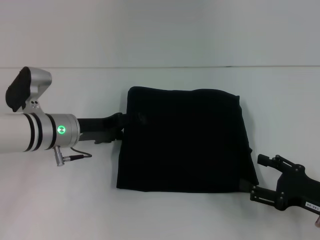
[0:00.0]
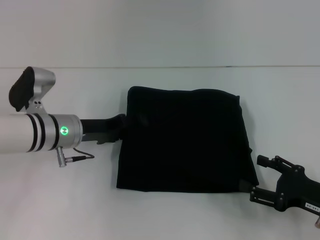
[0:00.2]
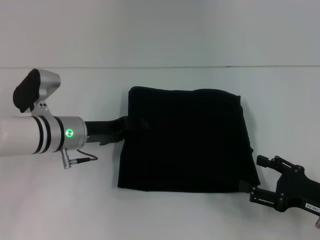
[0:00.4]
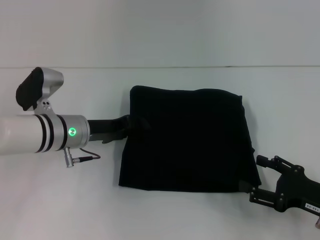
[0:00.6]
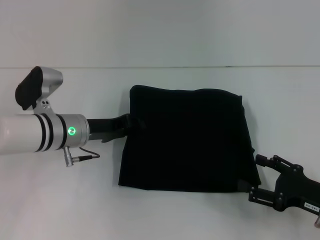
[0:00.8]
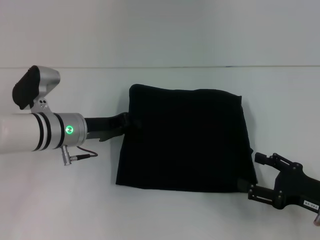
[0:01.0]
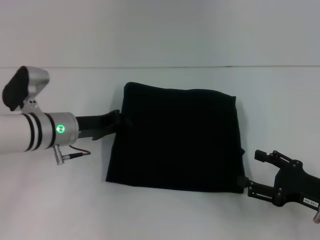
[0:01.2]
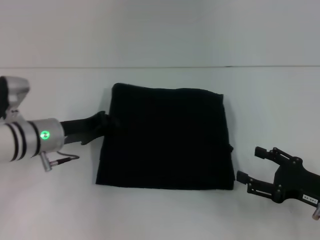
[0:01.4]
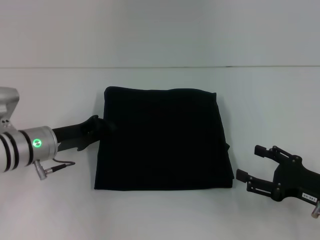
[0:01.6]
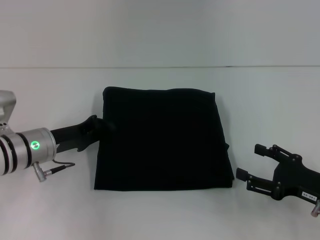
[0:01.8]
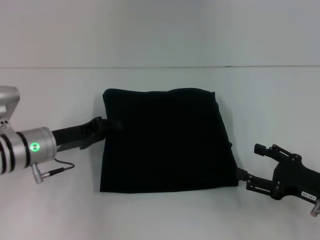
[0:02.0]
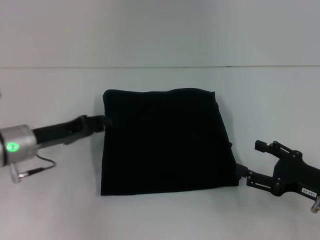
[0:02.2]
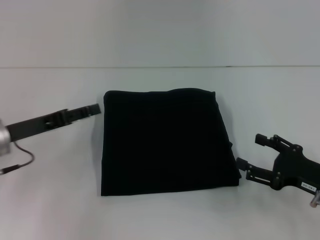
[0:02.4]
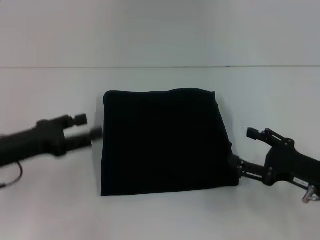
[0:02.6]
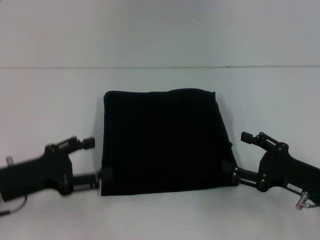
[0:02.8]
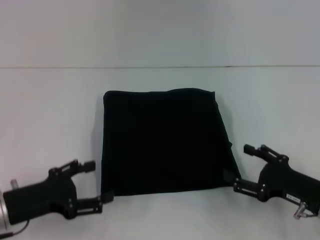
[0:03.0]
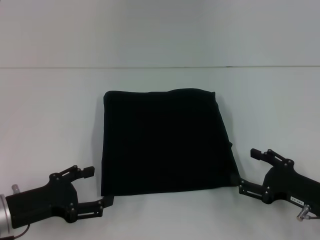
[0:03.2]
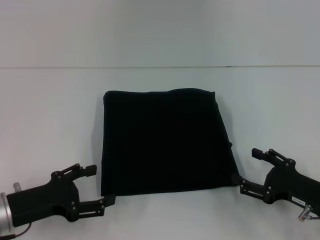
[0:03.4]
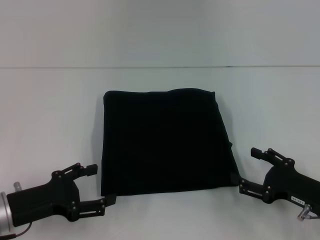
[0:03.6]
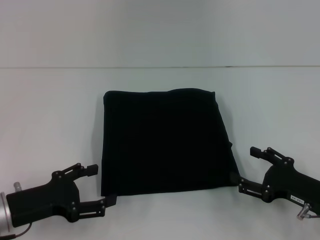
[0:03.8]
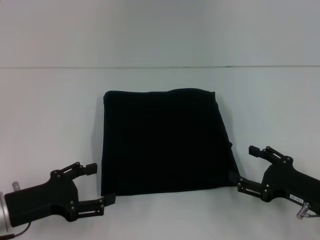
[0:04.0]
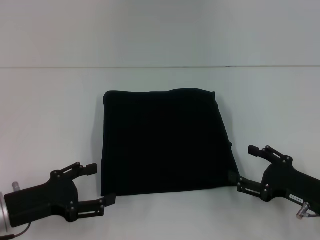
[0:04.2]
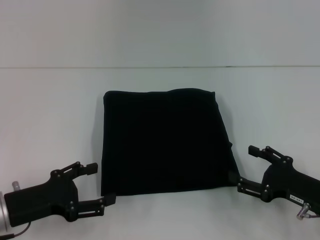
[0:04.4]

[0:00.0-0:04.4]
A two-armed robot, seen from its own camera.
0:00.0 to 0:01.4: The left gripper closes its fingers.
0:01.4 to 0:03.0: The left gripper is displaced backward and to the left by approximately 15 cm, and opens up.
0:03.0 to 0:04.4: The two grippers keep their place.

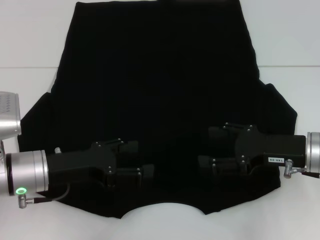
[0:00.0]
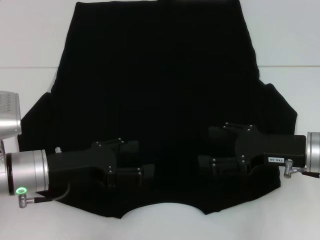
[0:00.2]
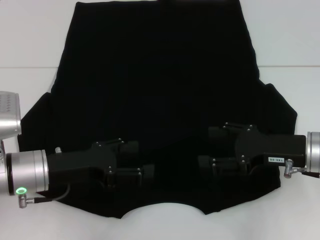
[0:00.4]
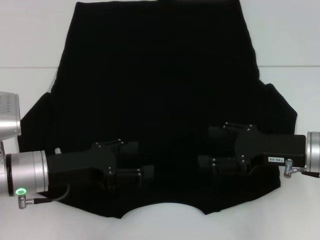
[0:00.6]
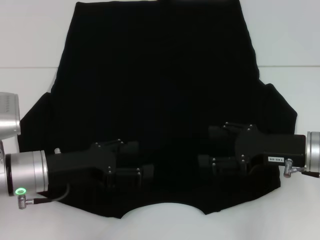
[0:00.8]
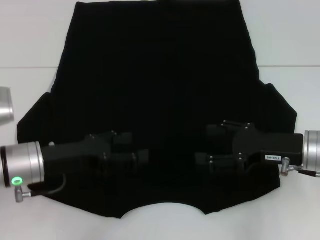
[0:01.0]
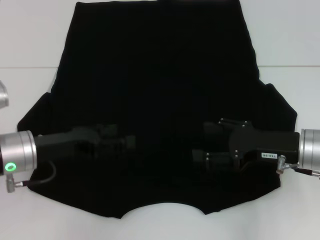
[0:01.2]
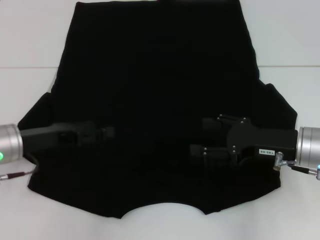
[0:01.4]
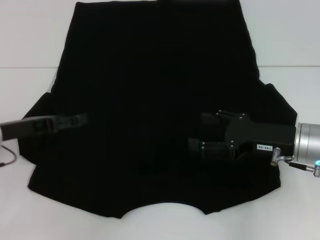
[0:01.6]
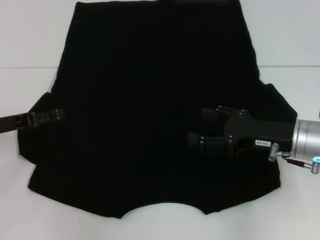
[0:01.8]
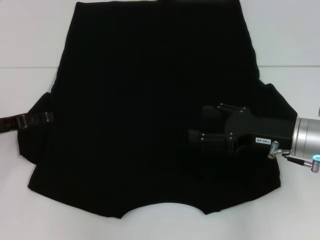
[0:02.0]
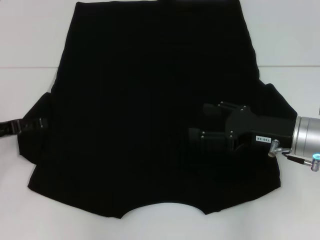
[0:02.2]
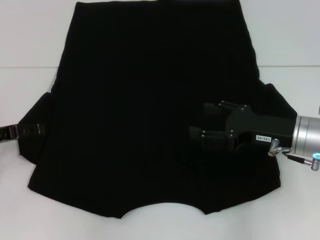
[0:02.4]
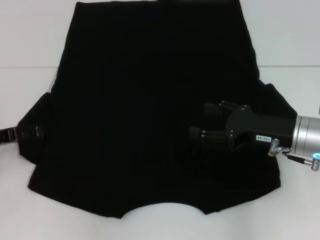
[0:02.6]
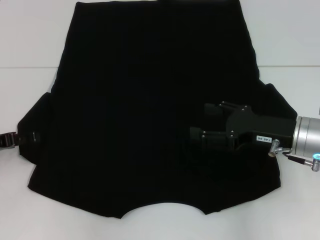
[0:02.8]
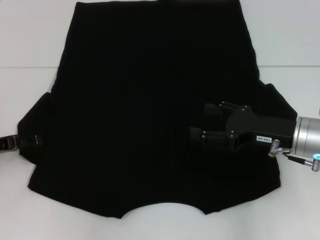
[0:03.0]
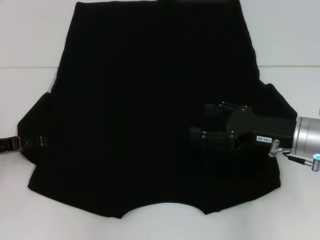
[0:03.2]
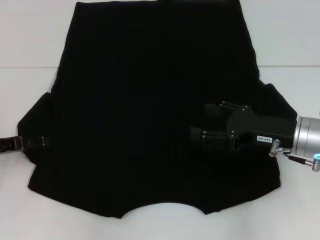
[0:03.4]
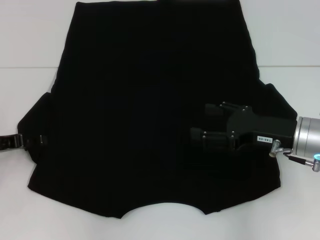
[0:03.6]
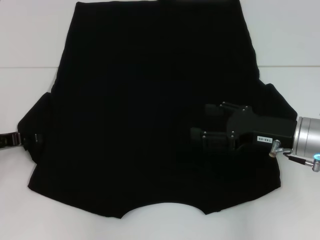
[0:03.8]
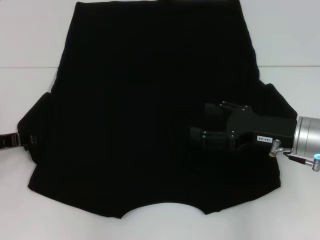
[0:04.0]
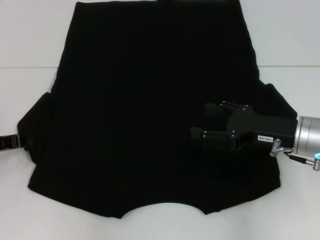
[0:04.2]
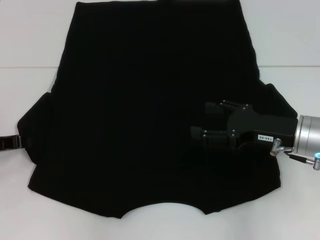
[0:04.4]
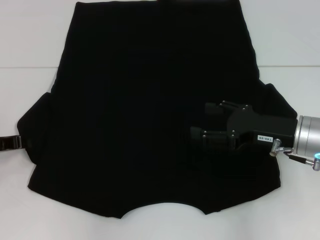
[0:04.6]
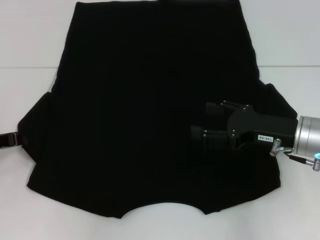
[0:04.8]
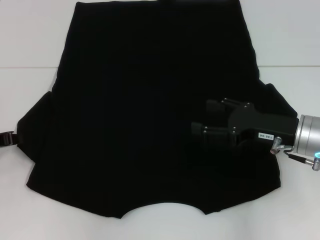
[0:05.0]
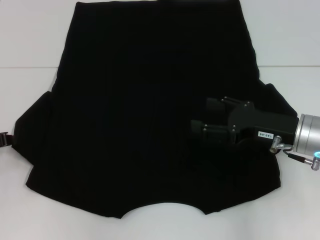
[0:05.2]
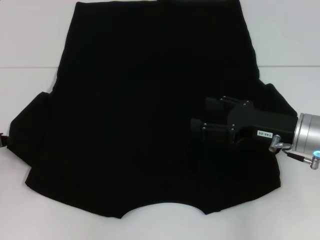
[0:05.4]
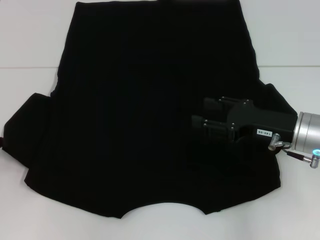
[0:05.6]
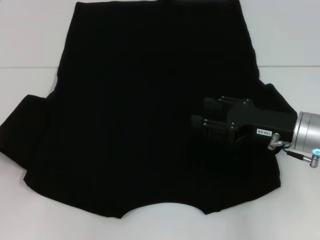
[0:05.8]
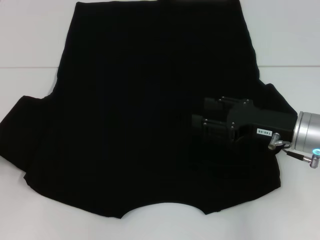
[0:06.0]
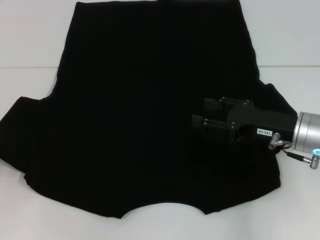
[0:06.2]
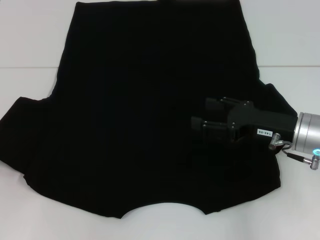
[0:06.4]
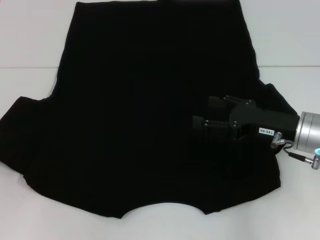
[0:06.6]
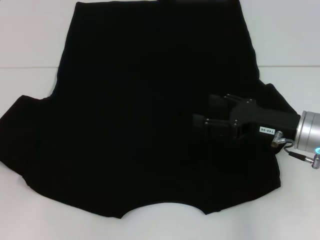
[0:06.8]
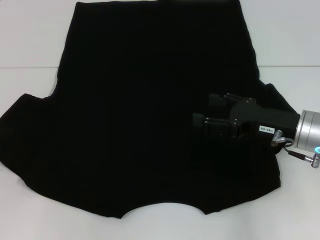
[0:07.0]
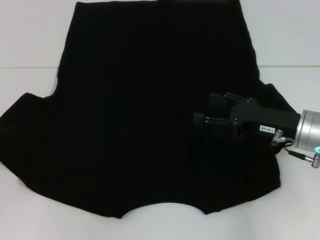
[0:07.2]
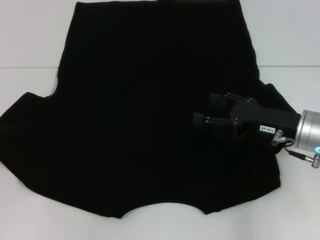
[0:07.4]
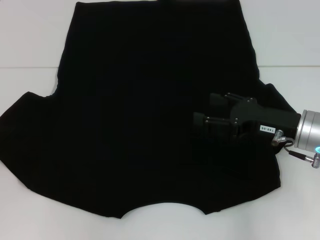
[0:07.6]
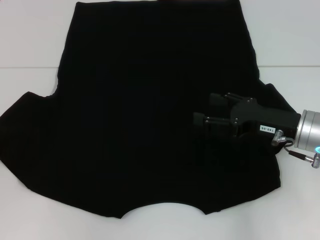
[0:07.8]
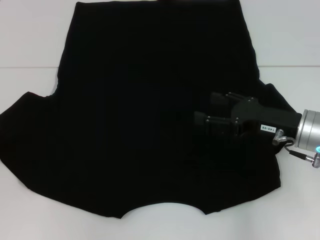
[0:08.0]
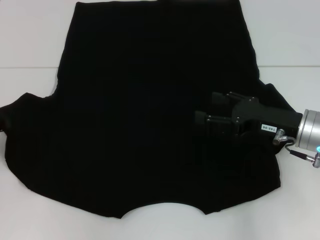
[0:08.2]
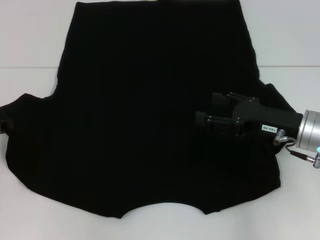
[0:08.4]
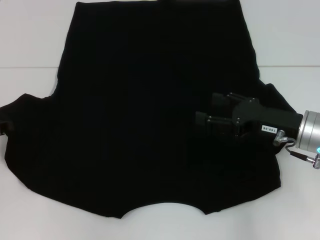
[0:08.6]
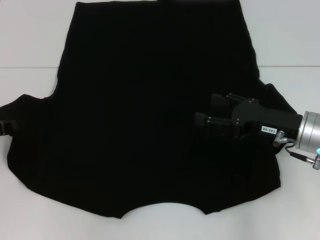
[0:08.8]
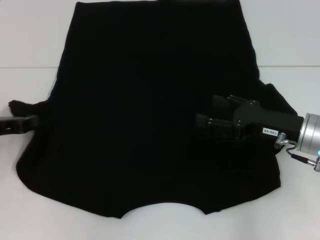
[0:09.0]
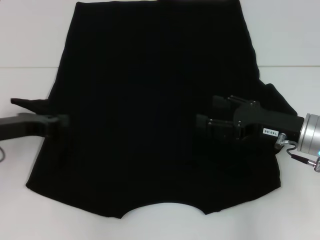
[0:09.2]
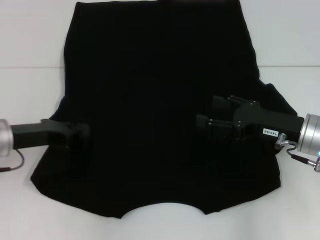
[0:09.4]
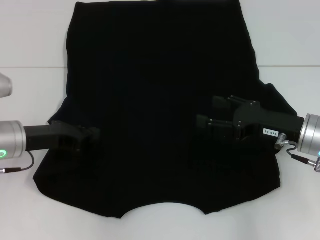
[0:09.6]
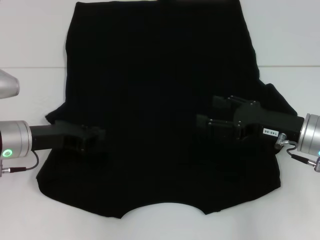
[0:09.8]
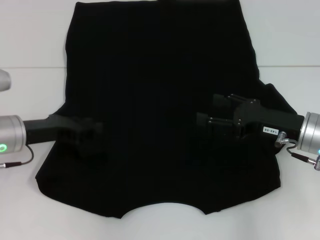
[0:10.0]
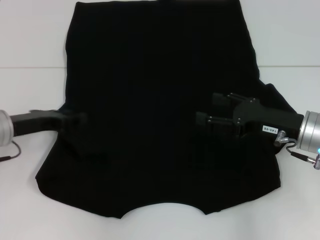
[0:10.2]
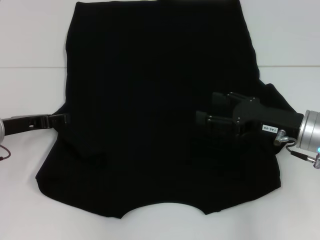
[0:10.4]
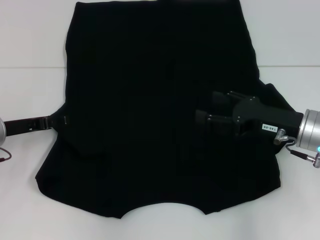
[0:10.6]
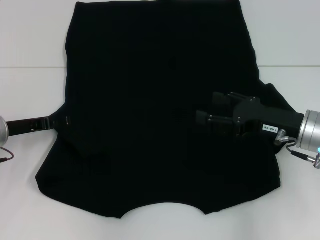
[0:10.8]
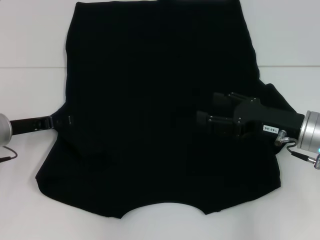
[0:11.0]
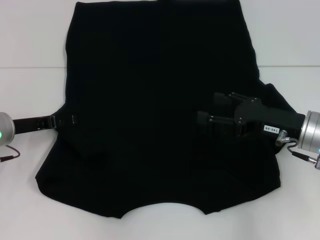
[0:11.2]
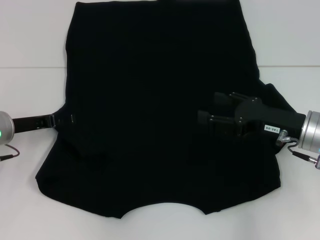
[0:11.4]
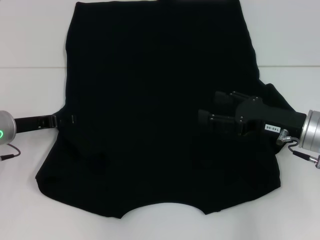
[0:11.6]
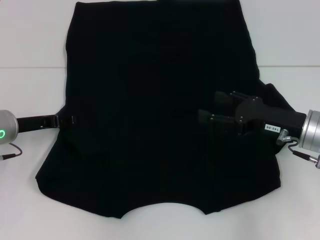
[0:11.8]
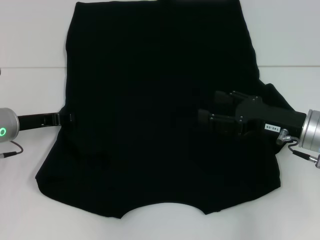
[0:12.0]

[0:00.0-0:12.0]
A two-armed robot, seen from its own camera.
0:00.0 to 0:01.6: The left gripper is displaced to the left by some 10 cm.
0:04.4 to 0:07.6: The grippers stay close to where they were, moving slightly.
0:09.0 to 0:10.4: The left gripper opens up.
0:10.4 to 0:12.0: The grippers stay close to where they were, moving slightly.

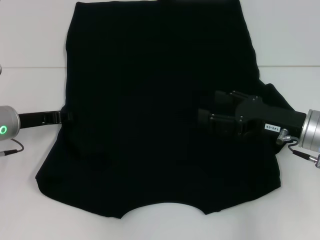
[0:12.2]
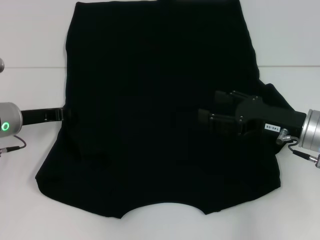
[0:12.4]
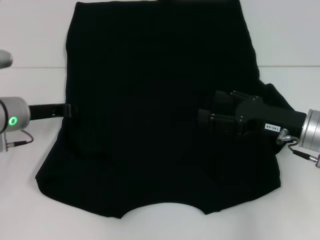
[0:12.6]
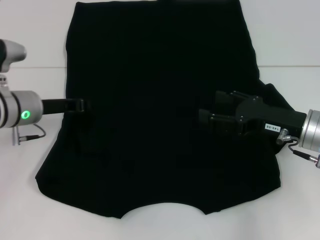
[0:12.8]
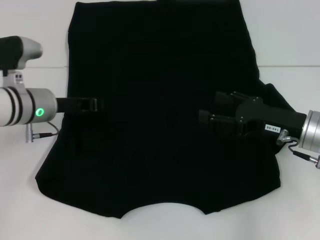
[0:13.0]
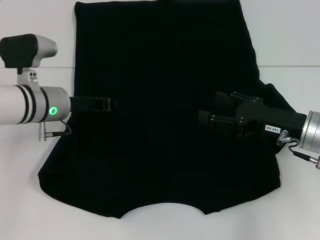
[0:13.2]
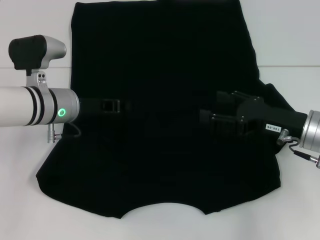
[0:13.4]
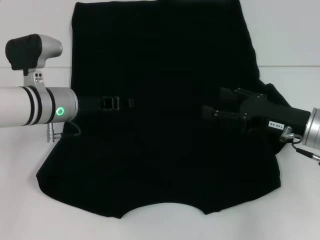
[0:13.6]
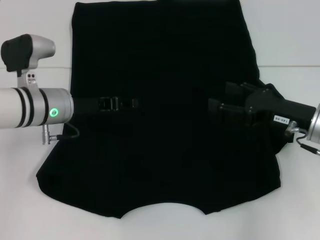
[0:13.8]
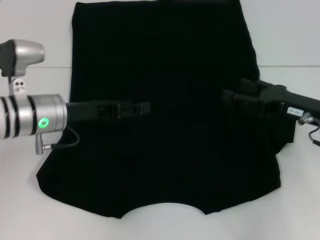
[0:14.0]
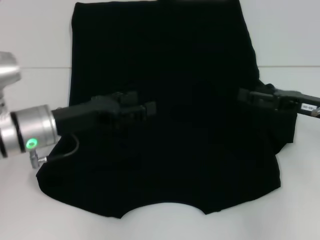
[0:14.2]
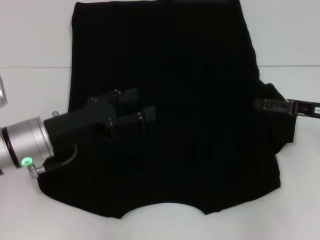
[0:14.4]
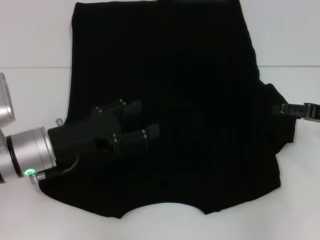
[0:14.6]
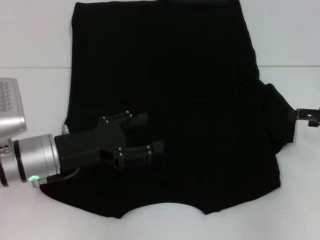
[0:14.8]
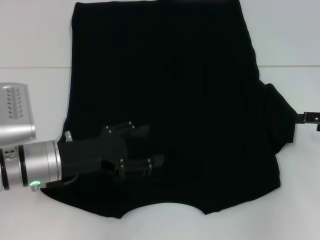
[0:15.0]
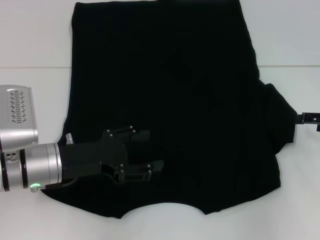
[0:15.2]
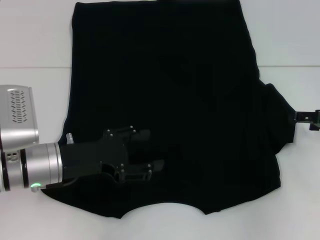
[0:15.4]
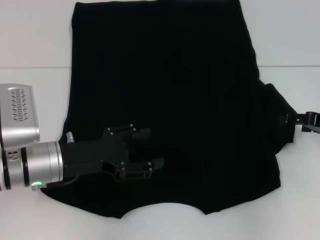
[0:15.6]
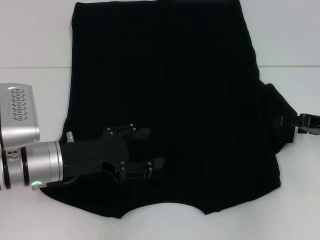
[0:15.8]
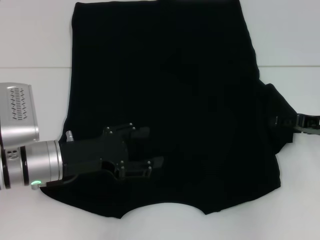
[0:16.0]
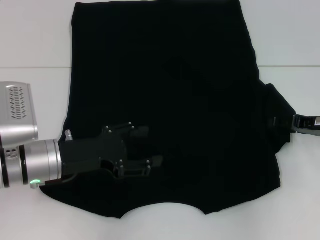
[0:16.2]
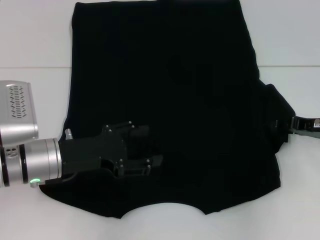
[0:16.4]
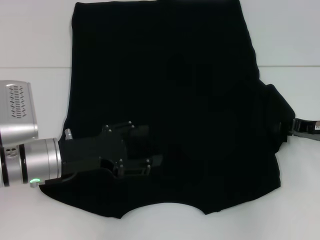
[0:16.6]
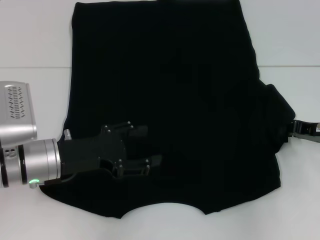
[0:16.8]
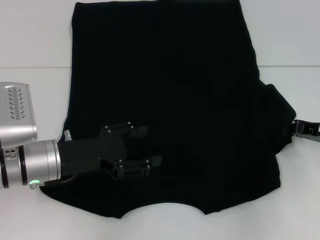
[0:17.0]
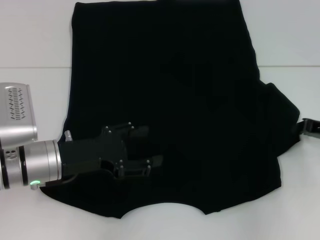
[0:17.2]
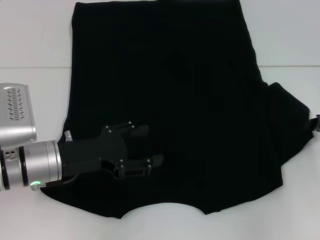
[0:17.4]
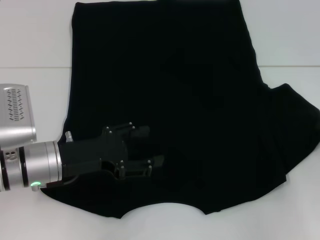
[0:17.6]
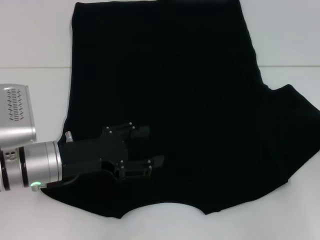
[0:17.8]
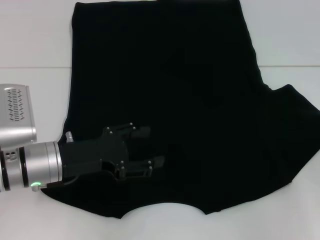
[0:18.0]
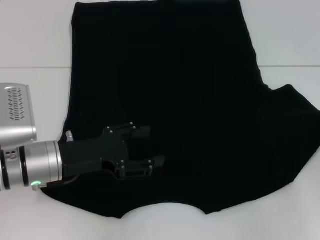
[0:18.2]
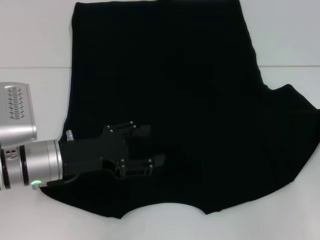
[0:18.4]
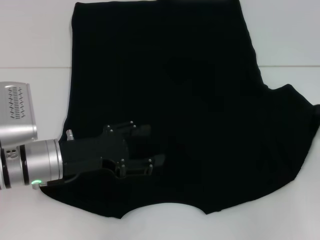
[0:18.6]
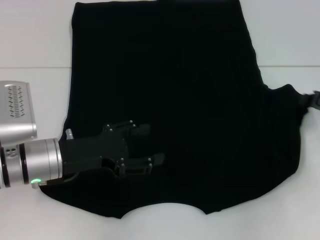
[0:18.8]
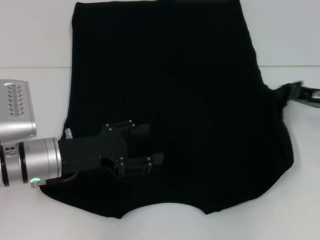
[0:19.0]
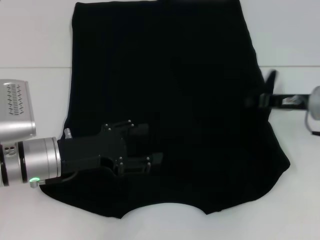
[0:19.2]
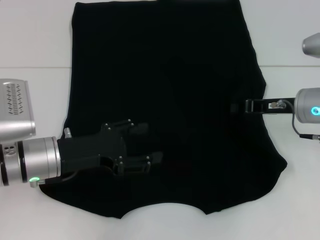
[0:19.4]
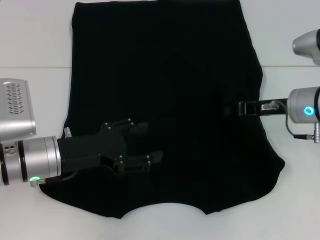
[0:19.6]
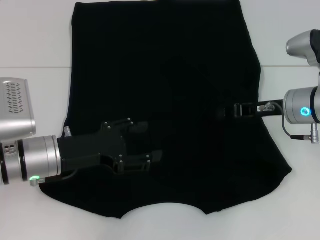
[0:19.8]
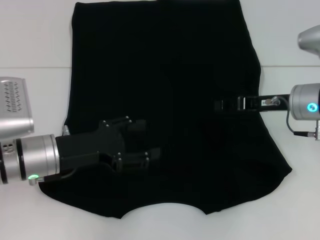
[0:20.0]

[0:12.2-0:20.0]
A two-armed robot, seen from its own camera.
Step, 0:13.6 to 0:20.0: Fold the bottom right sleeve with your right hand.
0:12.2 to 0:13.8: The left gripper moves to the right, some 10 cm, and closes, then opens again.
0:13.8 to 0:15.4: The right gripper goes roughly 10 cm to the right, while the left gripper shifts roughly 10 cm backward, and opens.
0:15.4 to 0:16.8: The right gripper closes up.
0:16.8 to 0:18.4: The right gripper is displaced to the right by roughly 5 cm.
0:18.4 to 0:20.0: The right gripper heads to the left, covering roughly 15 cm.
